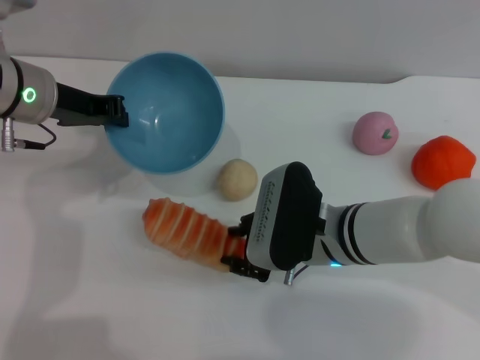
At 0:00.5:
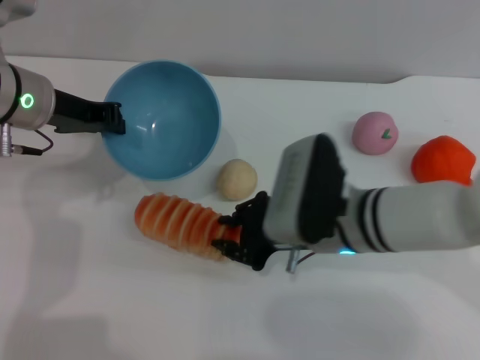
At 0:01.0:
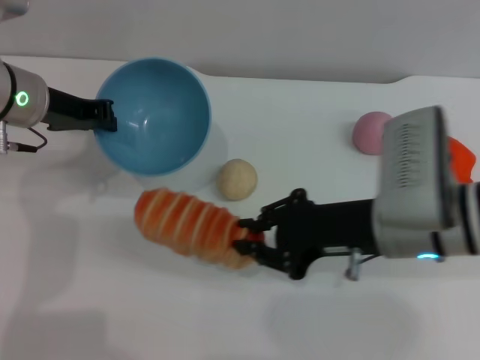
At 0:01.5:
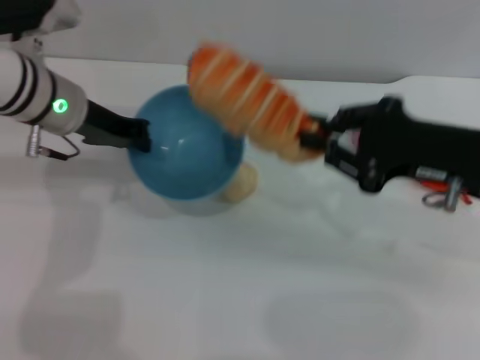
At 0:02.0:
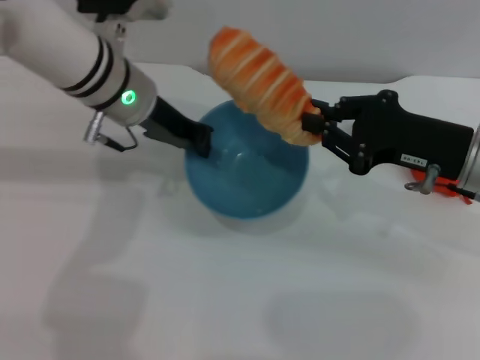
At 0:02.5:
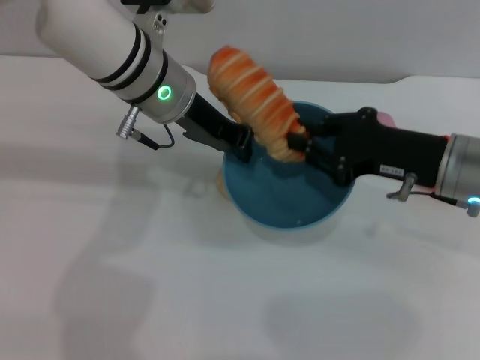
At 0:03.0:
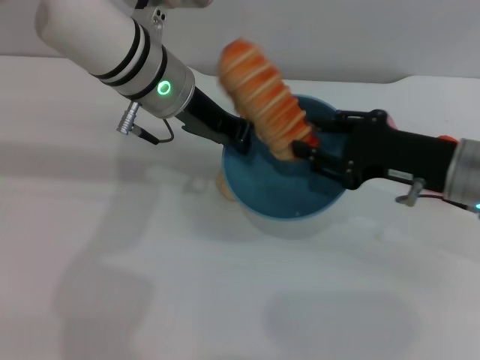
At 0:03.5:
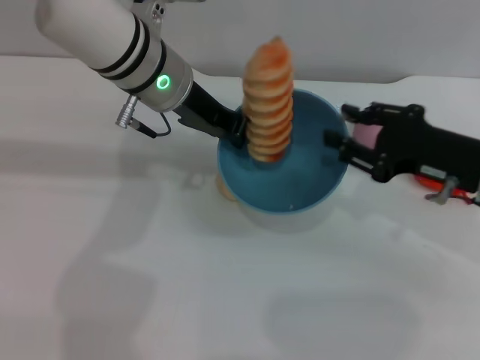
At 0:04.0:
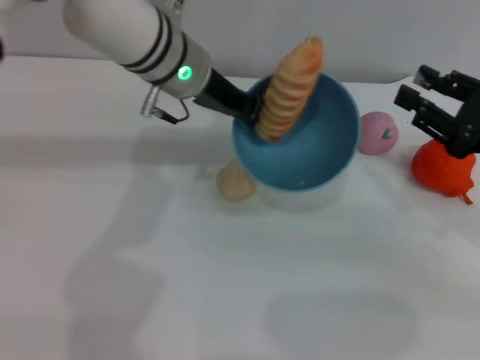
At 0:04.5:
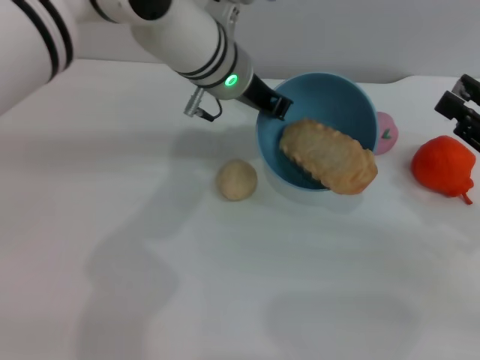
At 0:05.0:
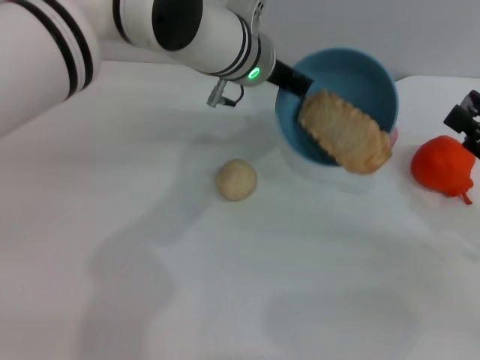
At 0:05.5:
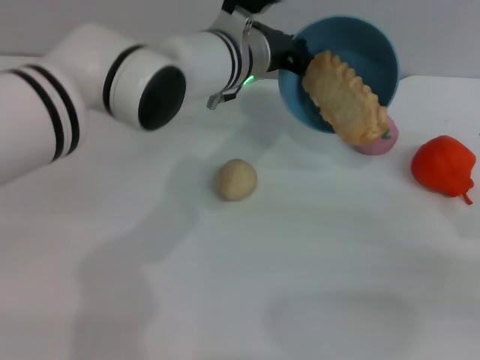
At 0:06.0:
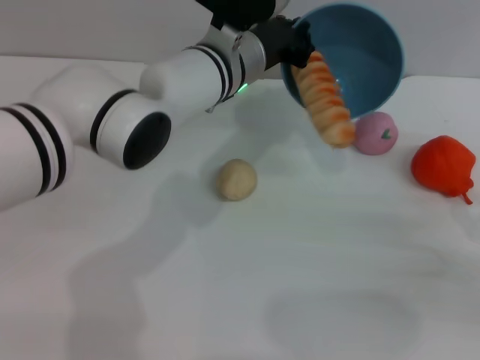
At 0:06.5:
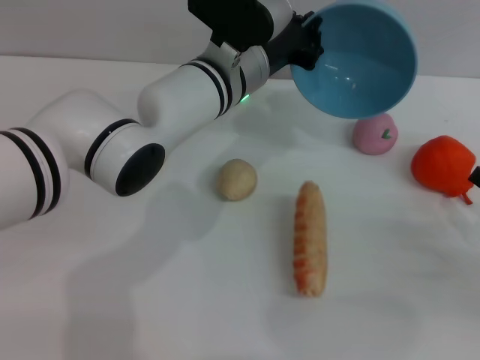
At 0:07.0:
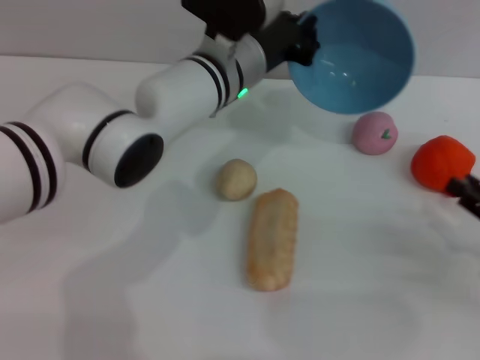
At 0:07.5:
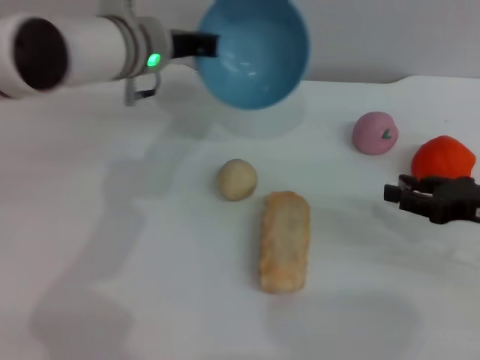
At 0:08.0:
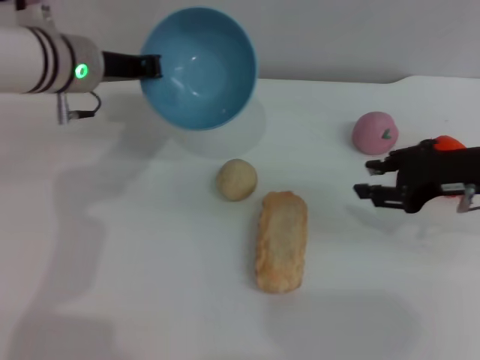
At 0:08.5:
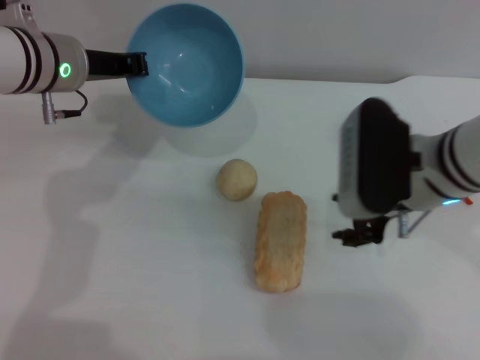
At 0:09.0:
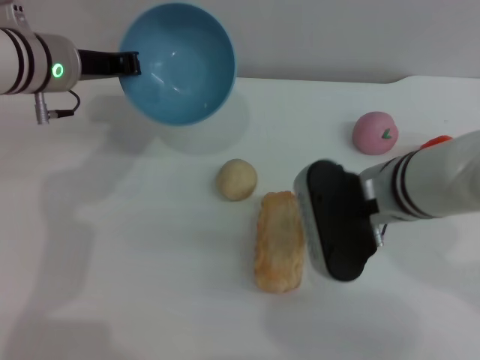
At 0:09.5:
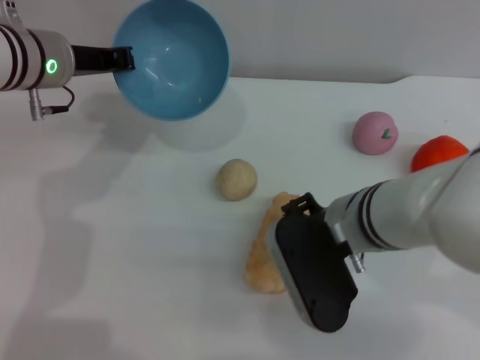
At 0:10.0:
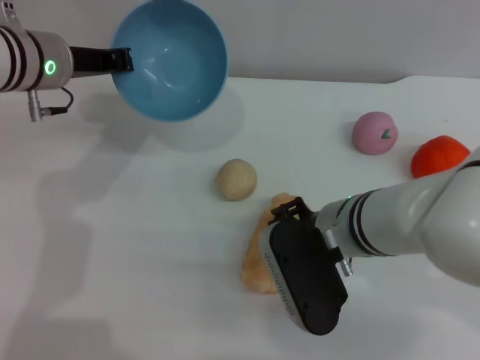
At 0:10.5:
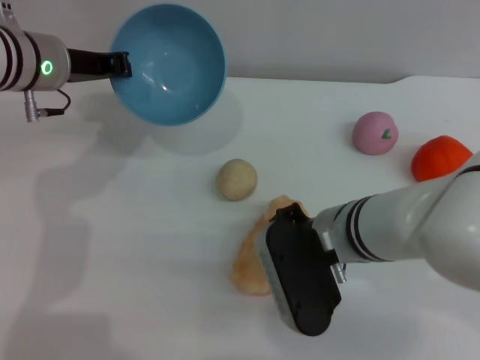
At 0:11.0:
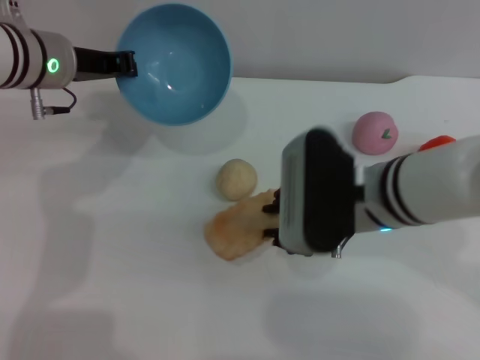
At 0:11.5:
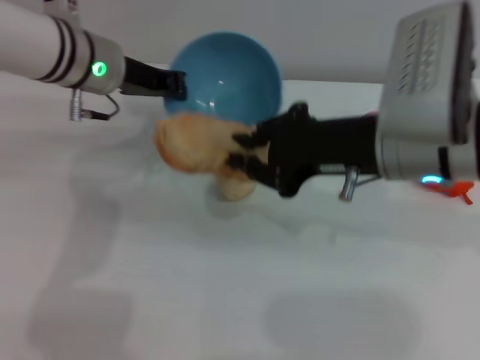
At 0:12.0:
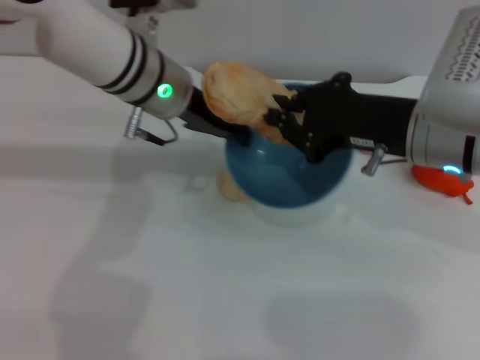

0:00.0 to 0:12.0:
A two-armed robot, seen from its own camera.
Task of the whole recording: put the bread into the blue bowl and pour it out repeatedly.
Step, 0:01.5 to 0:03.5: Place the bread into the bowl.
Step, 0:04.0 to 0:06.5: Pour the bread out of the bowl.
Step, 0:07.0 to 0:11.0: Pick up the bread with the right gripper.
0:00.0 to 0:02.0: The right gripper travels to the right and upward by roughly 15 cm, and closes, while the left gripper moves to the right, roughly 10 cm.
0:02.0 to 0:04.0: The two grippers go roughly 5 cm to the right. The right gripper opens up.
0:04.0 to 0:06.0: The right gripper travels downward, to the right and backward by some 10 cm; the left gripper goes about 5 cm to the right.
0:06.0 to 0:08.0: The left gripper heads to the left, covering approximately 15 cm, while the right gripper travels to the left, forward and upward by roughly 15 cm.
0:08.0 to 0:10.0: The right gripper moves to the left, some 15 cm.
0:10.0 to 0:12.0: The right gripper is displaced upward and to the right by approximately 10 cm, and closes; the left gripper goes about 10 cm to the right.

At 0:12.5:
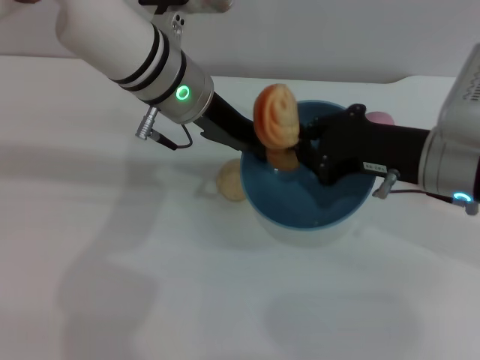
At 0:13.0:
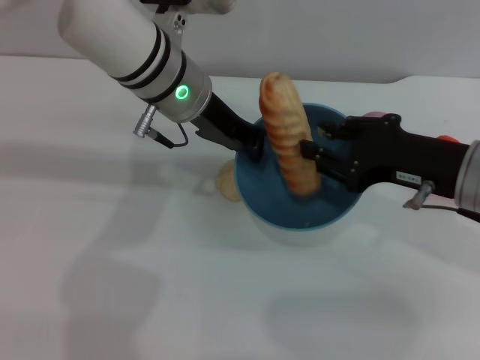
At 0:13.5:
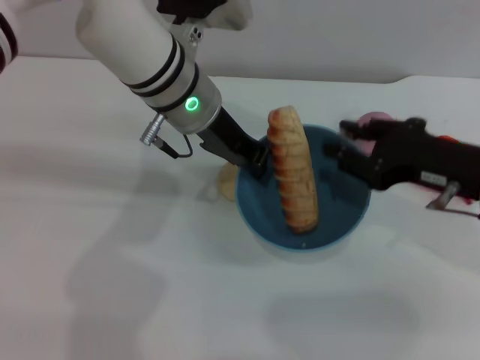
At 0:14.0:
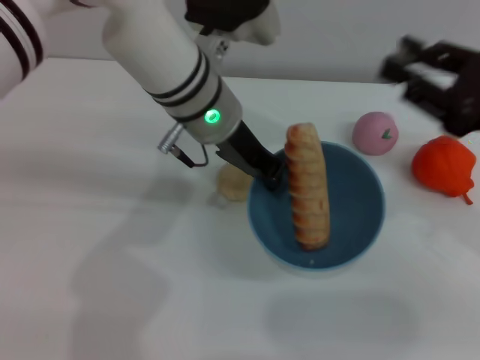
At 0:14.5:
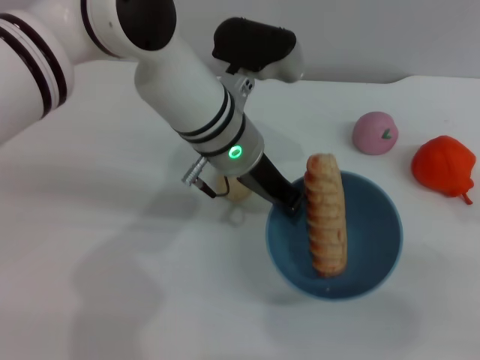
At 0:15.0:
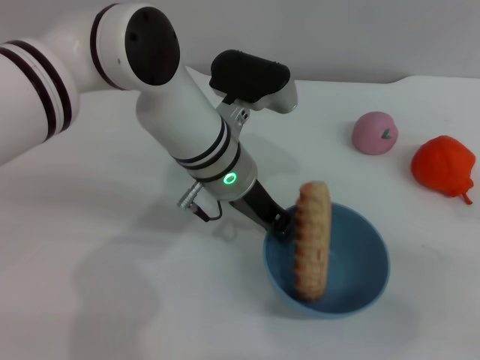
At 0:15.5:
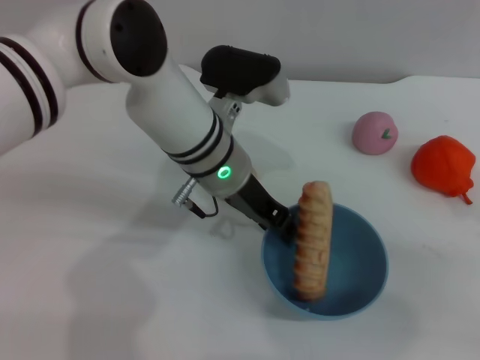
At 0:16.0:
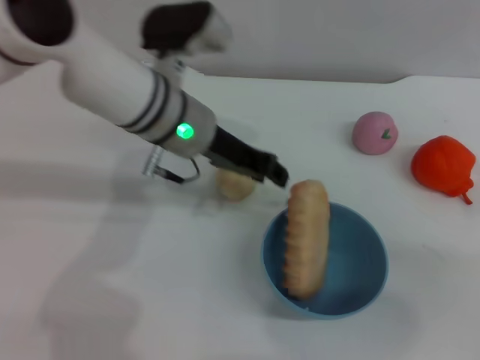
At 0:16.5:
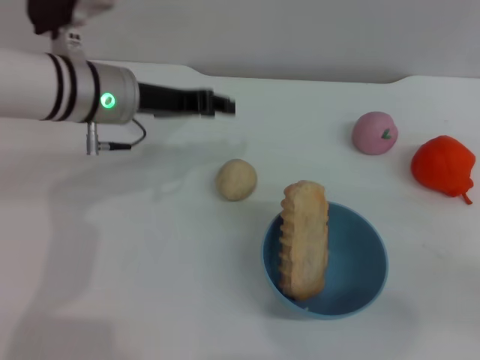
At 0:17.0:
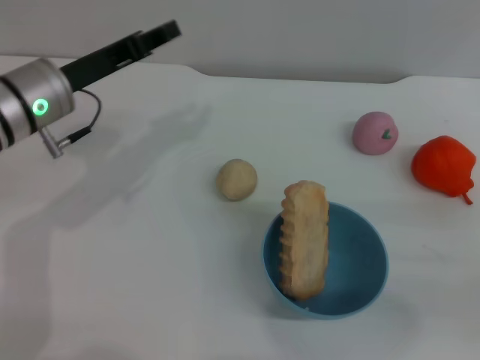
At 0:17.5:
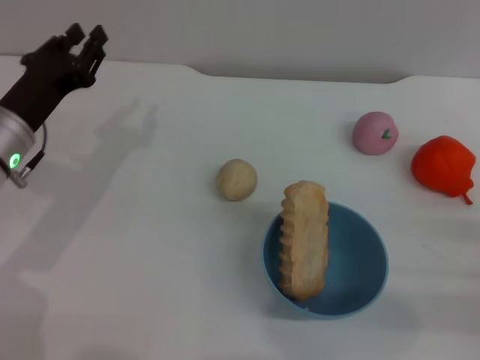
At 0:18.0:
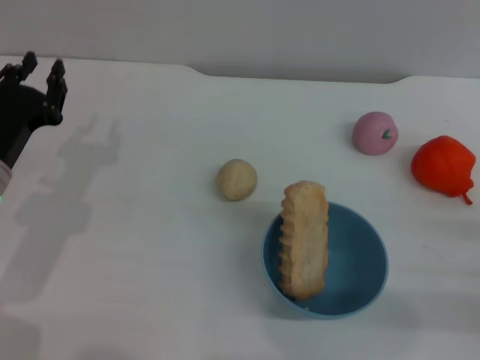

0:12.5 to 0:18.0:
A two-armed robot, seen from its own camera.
Task of the whole recording: put the bread into the blue bowl and pour it out repeatedly.
Step, 0:14.0 to 0:16.0: Place the bowl on the table.
0:12.5 to 0:14.5: The right gripper is displaced to the right and backward by about 15 cm, and opens up; the left gripper travels to the right by about 5 cm.
0:14.5 to 0:16.0: The left gripper heads to the left, covering roughly 5 cm, and opens.
0:16.0 to 0:18.0: The left gripper shifts some 20 cm to the left, downward and backward. The right gripper heads downward, covering some 10 cm.
